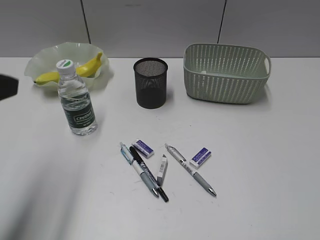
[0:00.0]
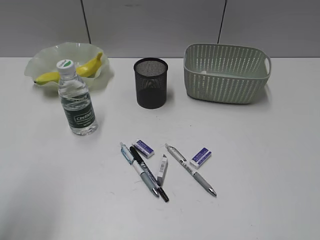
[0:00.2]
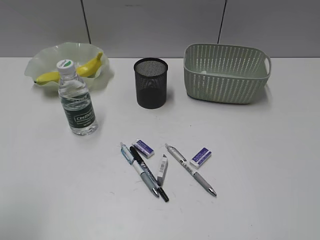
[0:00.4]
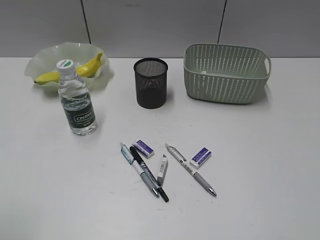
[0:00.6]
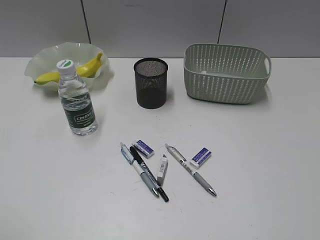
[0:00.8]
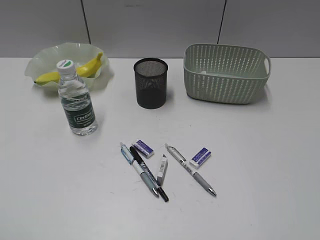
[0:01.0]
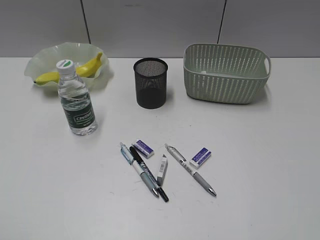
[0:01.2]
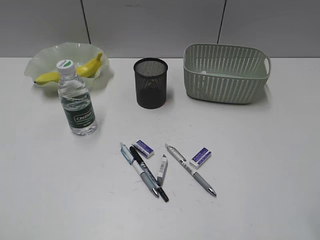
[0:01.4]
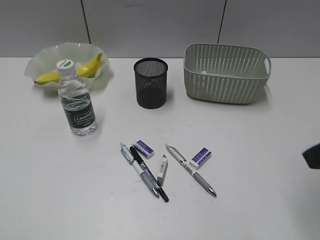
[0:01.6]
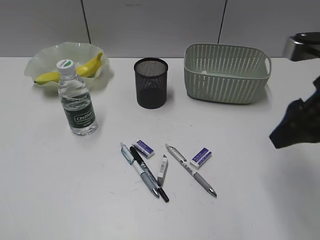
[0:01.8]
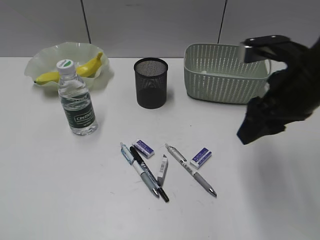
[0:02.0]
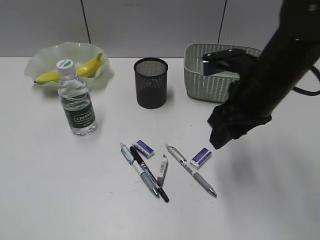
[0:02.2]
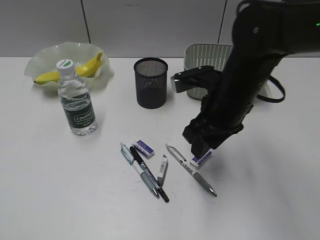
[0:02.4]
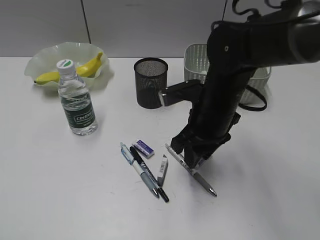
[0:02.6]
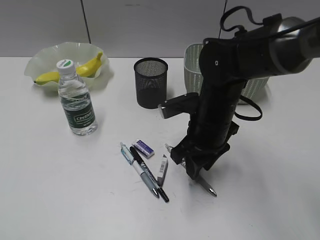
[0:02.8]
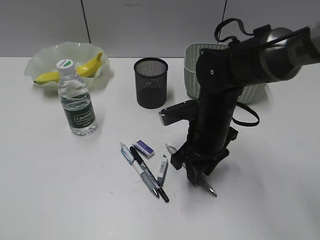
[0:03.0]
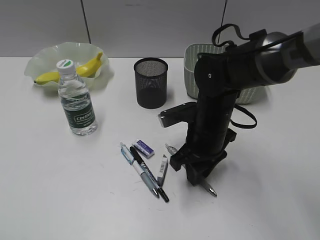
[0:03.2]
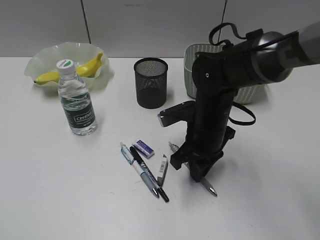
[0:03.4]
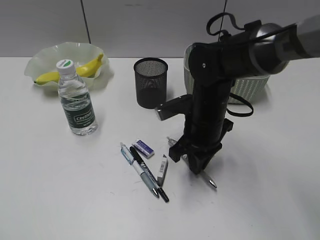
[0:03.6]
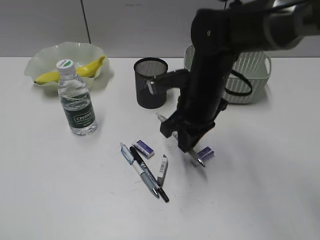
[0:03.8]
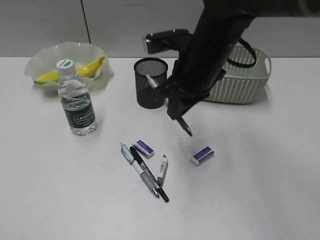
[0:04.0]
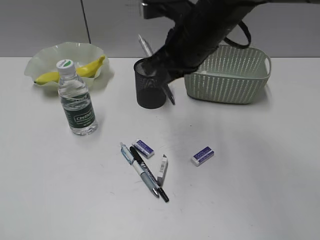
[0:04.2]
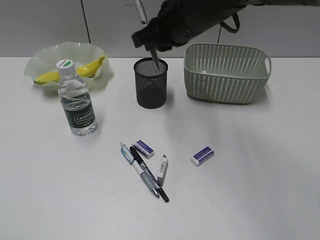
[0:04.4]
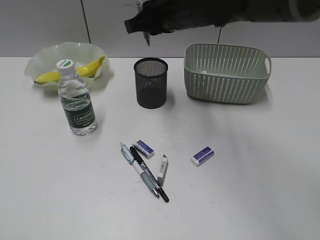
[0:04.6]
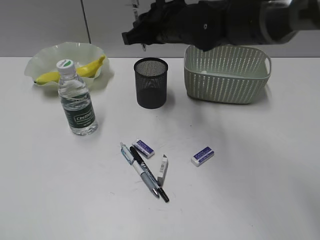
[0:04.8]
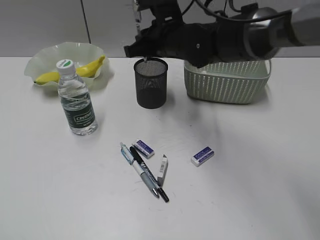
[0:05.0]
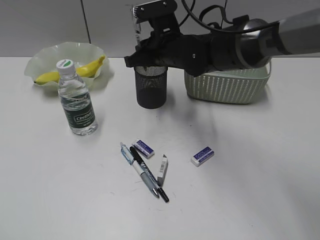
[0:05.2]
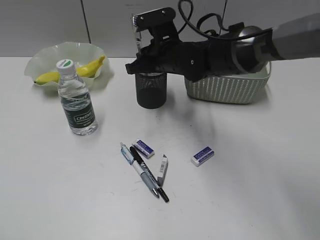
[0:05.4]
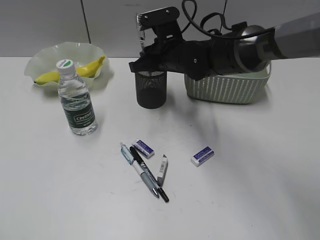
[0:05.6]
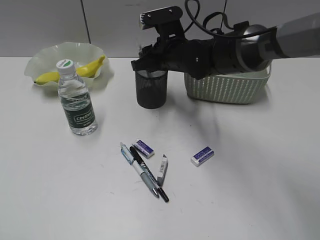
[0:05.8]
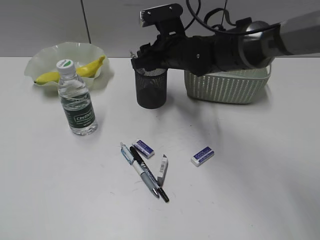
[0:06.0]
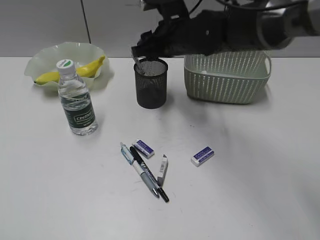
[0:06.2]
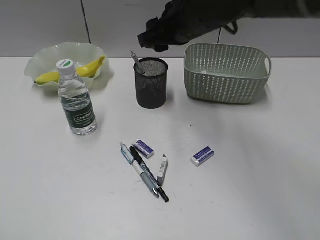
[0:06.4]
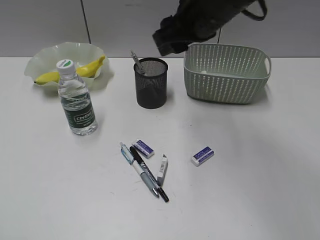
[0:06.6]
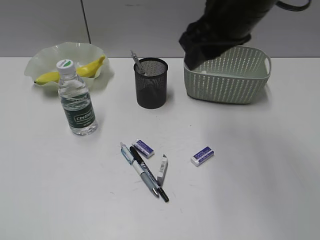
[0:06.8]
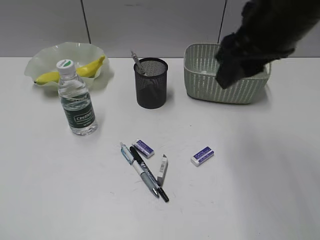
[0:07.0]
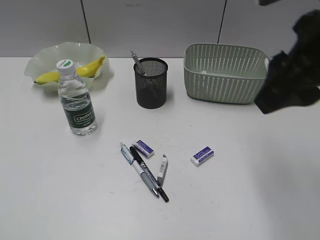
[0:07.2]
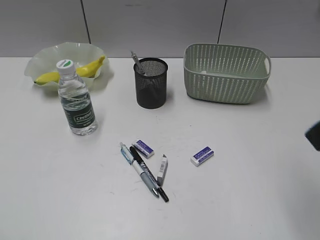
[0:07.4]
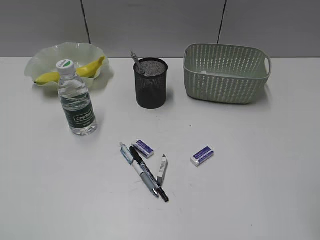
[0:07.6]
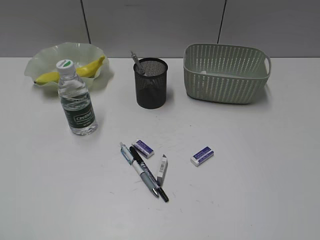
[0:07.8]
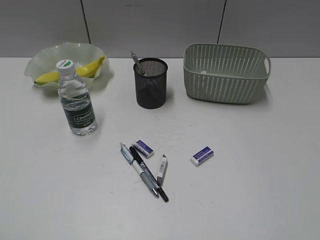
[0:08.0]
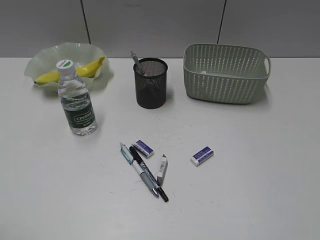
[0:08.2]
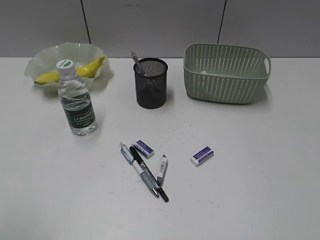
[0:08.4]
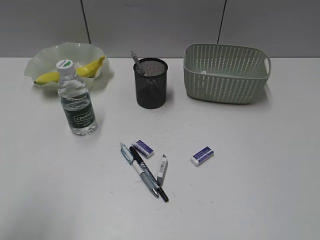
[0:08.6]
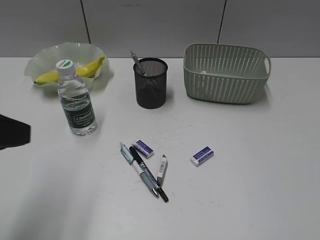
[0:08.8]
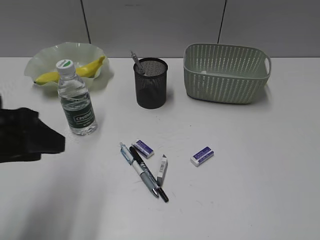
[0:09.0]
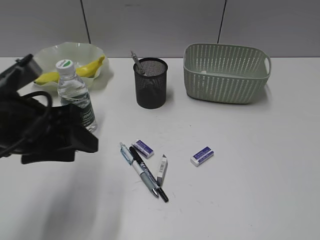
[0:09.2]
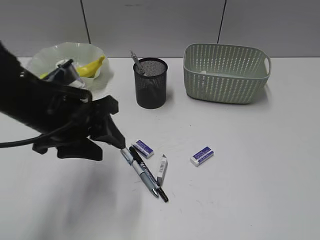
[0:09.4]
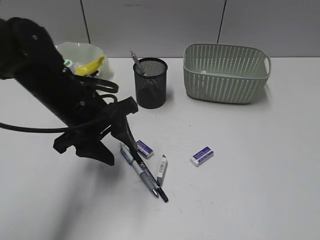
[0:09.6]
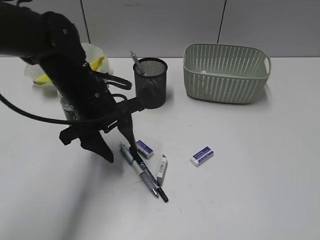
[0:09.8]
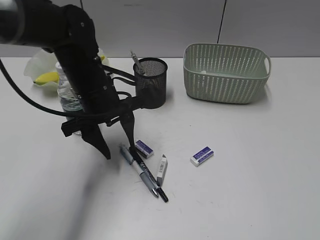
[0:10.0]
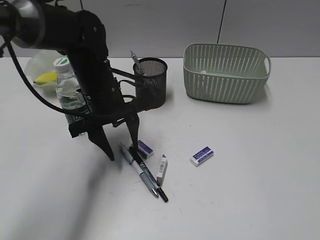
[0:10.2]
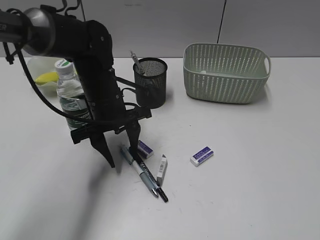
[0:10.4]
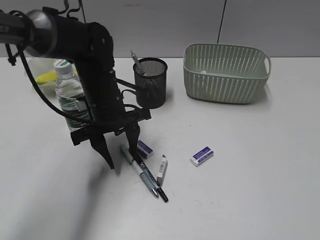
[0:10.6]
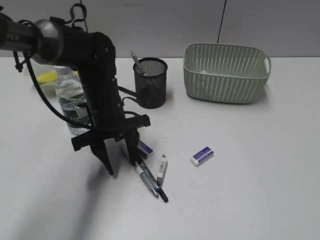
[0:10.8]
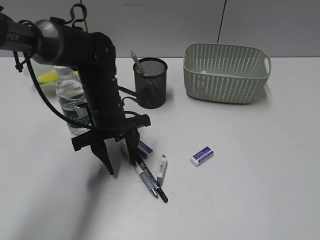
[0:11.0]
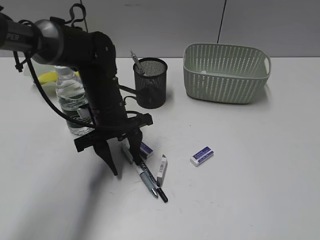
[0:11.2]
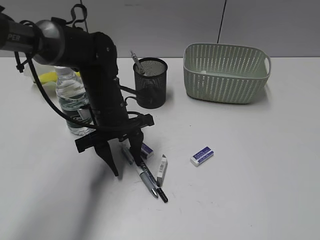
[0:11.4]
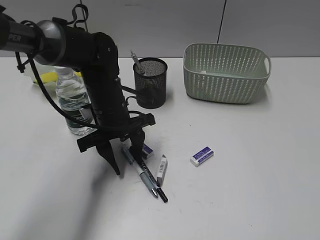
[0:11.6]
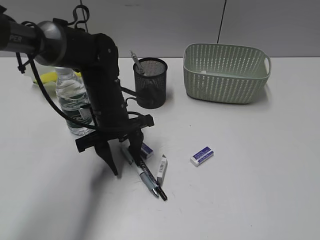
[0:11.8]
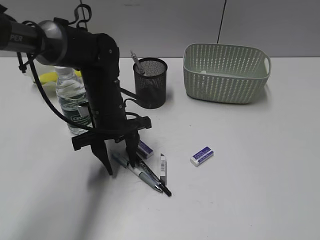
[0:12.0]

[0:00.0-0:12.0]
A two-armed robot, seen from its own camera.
Step, 0.0 to 3.4 s: Grasp the gray pen with right gripper.
Step, 3.6 to 6.0 s: Place the gray pen in pen holder with right gripper.
0.0 to 1.6 s: The right gripper heads forward, covering approximately 15 cm, while the left gripper heads backward, covering roughly 20 cm.
1.6 to 3.0 s: The right gripper goes roughly 25 cm downward, to the left and forward.
3.0 to 4.4 s: The right gripper shifts about 15 cm upward and forward, and closes up.
4.4 to 6.0 s: The right gripper shifts roughly 10 cm downward and forward, and opens its fingers.
6.0 to 7.6 s: The right gripper moves backward, to the right and upward, some 40 cm.
7.6 to 9.0 s: The left gripper heads forward and to the right, covering roughly 20 cm.
9.0 to 10.4 s: The left gripper moves forward, to the right and downward, roughly 25 cm.
10.4 to 12.0 s: The grippers move only a little.

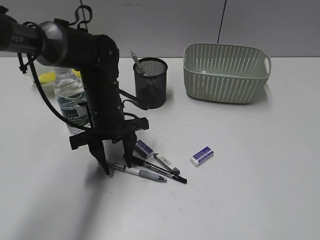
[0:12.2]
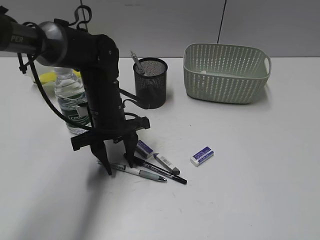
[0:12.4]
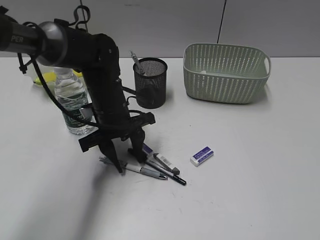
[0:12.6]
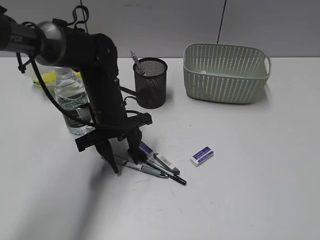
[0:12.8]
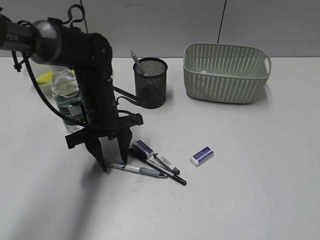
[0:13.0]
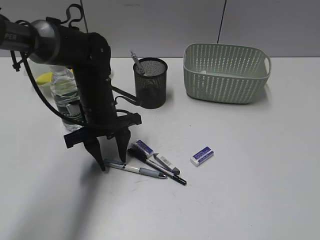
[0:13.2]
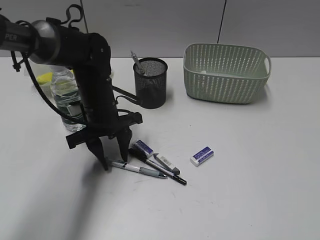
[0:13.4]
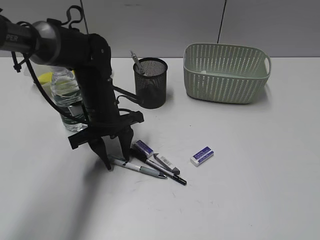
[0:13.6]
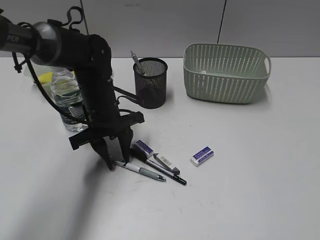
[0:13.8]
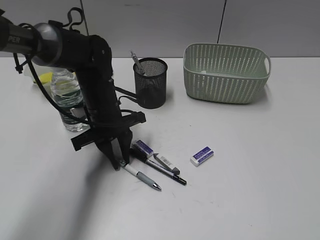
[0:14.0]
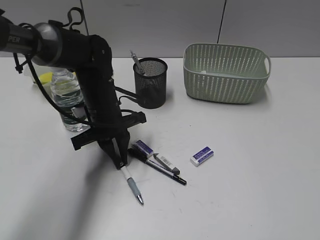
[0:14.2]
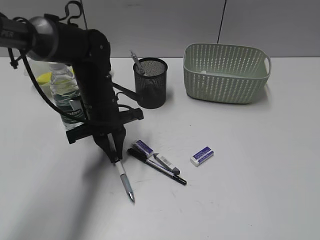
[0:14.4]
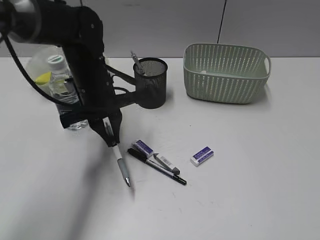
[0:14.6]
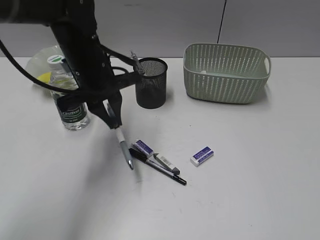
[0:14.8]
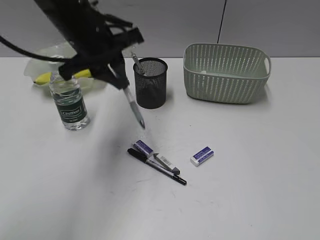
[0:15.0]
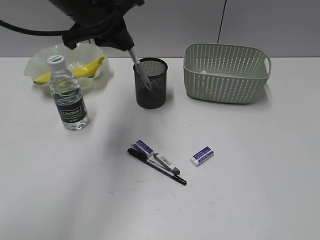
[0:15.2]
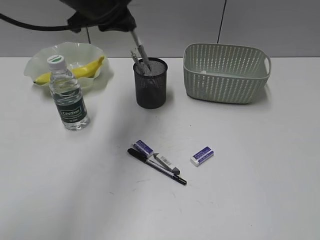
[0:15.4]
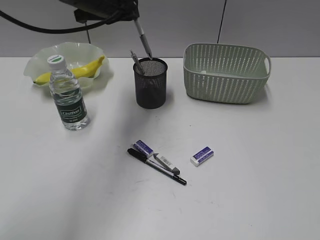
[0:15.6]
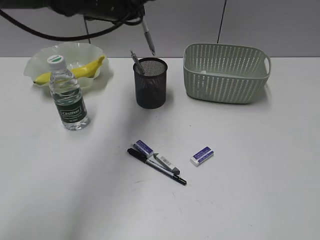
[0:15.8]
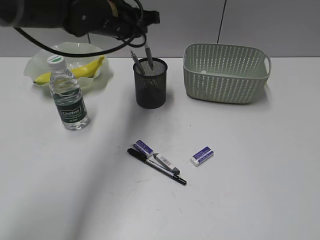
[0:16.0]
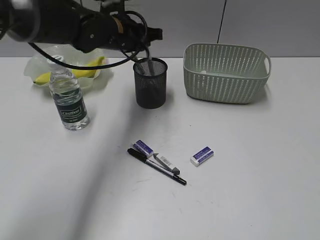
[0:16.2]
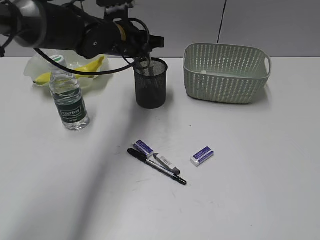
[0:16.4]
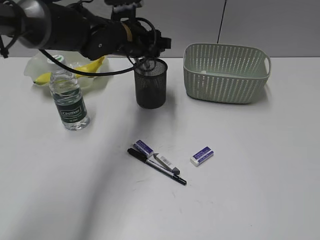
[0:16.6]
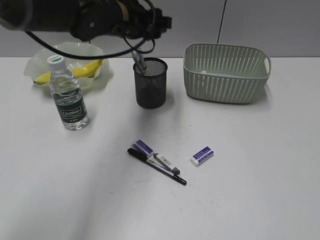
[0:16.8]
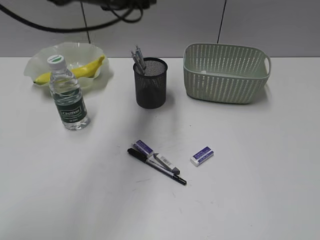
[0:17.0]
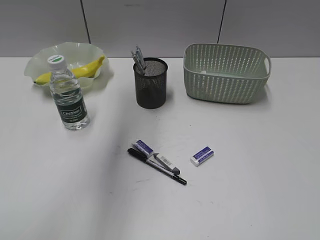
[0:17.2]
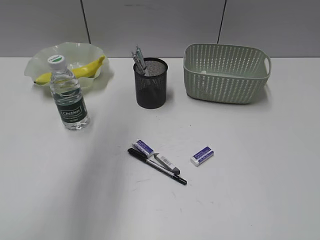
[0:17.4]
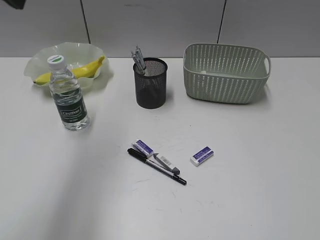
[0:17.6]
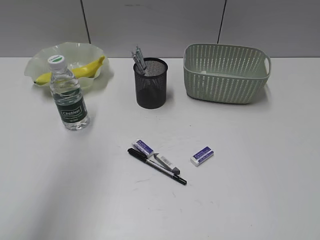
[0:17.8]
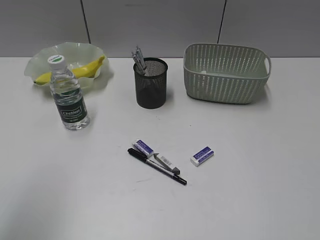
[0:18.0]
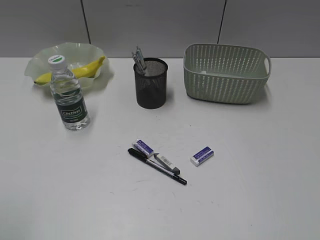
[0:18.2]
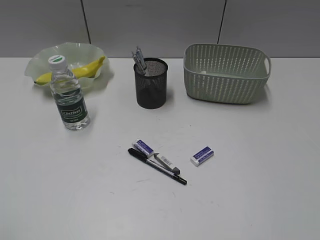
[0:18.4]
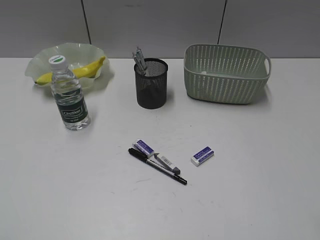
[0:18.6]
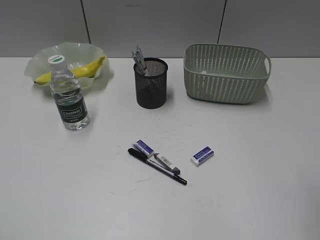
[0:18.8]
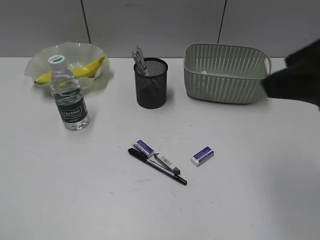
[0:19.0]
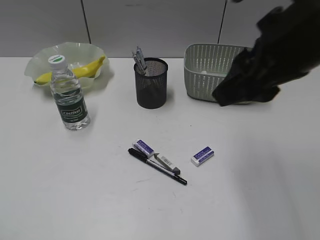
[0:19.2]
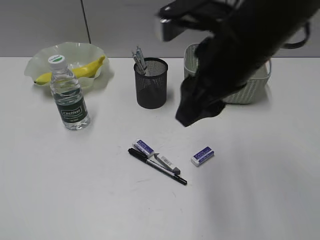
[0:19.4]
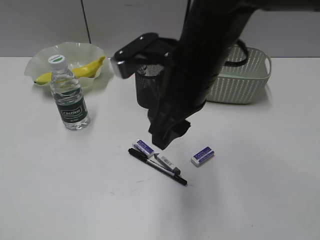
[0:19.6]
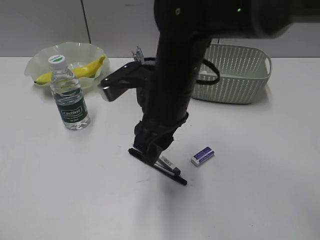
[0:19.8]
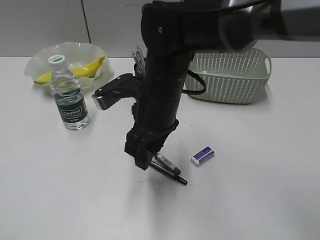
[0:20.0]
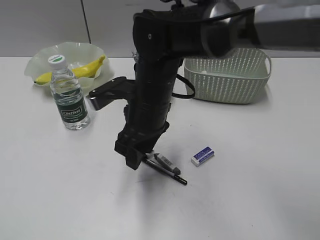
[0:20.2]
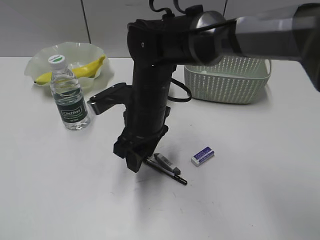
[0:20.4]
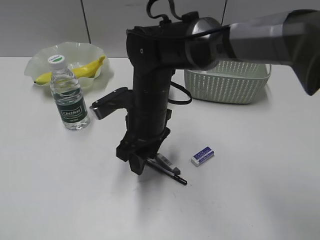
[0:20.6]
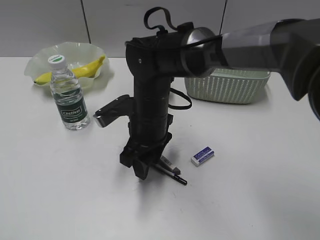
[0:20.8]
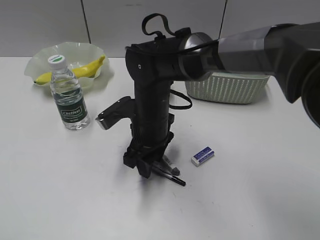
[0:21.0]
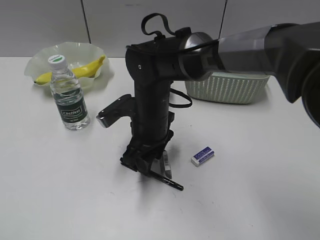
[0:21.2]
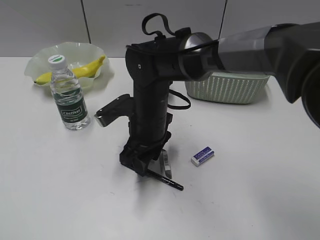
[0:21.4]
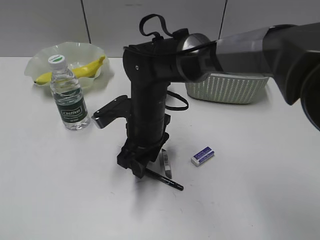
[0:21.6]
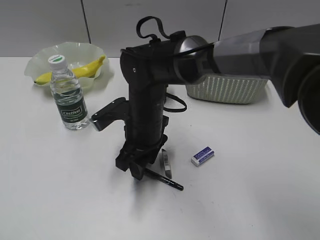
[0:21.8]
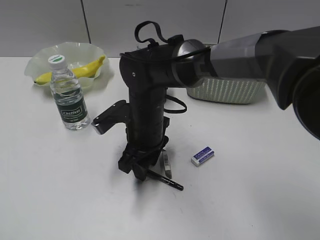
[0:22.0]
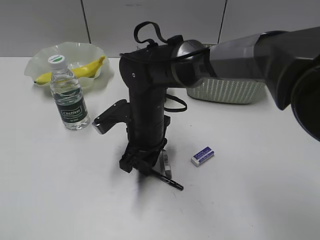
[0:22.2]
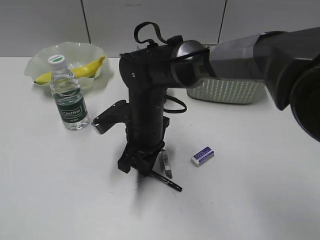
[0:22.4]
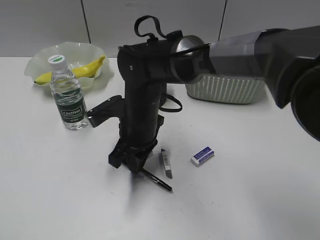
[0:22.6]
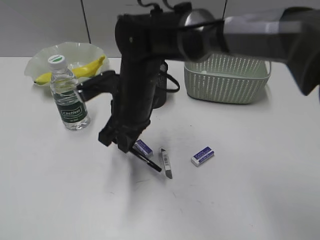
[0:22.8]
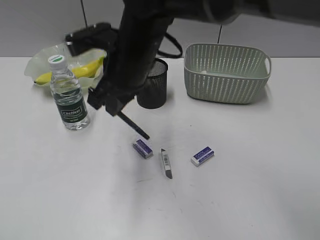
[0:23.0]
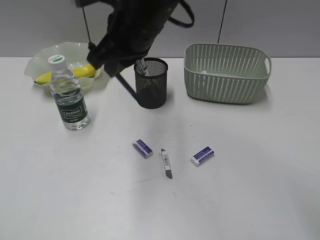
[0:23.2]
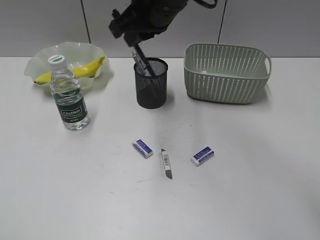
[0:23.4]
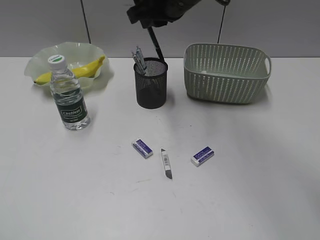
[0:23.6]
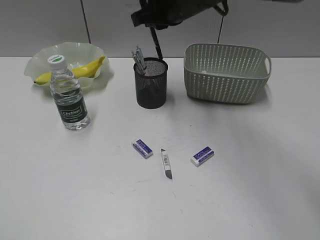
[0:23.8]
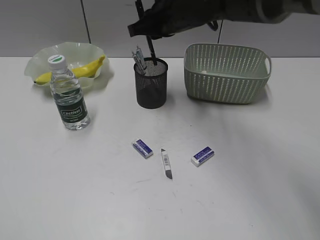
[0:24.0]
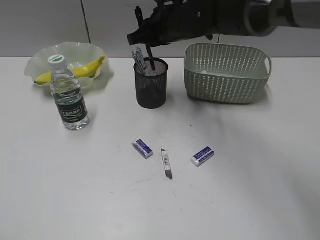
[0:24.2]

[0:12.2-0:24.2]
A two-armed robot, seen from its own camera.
Step, 12.2 to 14.2 s: Grasp the blue pen with left gripper.
Step, 14.4 to 16.6 s: Place the blue pen in pen holder with left gripper.
Step, 16.8 to 22.4 s: Grasp the black pen with right gripper.
12.2 to 13.8 s: The grippers stay close to where they were, moving slightly.
13.8 to 15.2 s: The left gripper goes some 20 cm upward, and closes.
15.2 to 16.6 s: The left gripper goes roughly 10 cm downward and forward, and opens.
16.6 to 18.2 s: The left gripper shifts some 40 cm backward and to the left.
18.2 to 19.8 s: The left gripper moves backward, about 5 cm. Meanwhile the right gripper moves to the left and forward, approximately 40 cm.
19.8 to 21.2 s: The right gripper heads downward, covering roughly 10 cm.
21.2 to 22.6 s: The right gripper closes.
22.6 to 24.2 s: The right gripper goes roughly 20 cm forward, upward and to the right.
